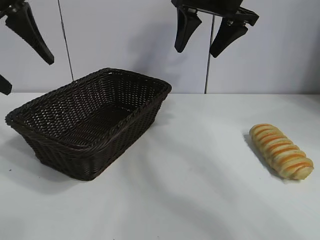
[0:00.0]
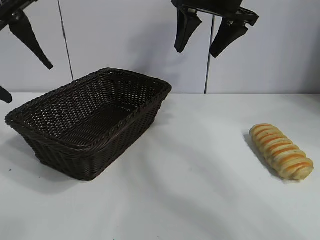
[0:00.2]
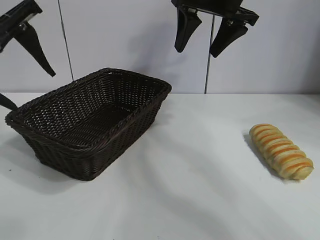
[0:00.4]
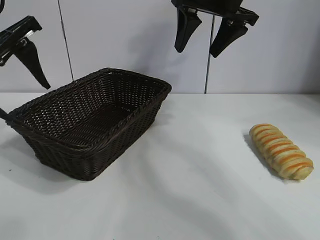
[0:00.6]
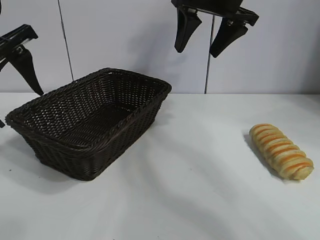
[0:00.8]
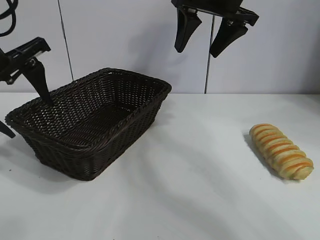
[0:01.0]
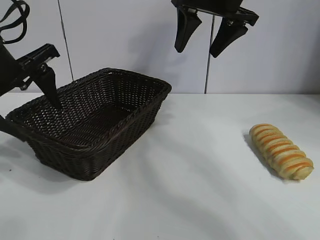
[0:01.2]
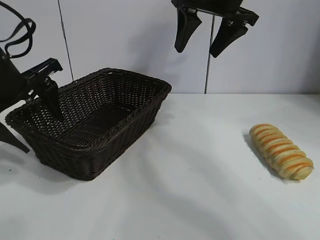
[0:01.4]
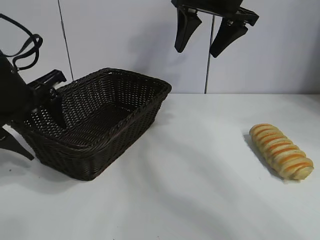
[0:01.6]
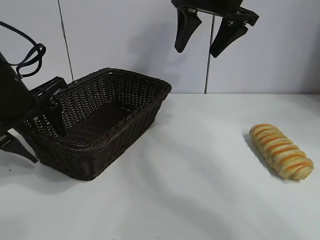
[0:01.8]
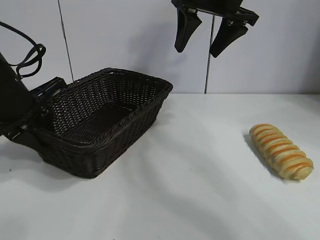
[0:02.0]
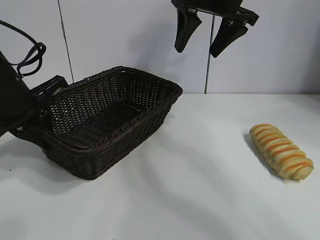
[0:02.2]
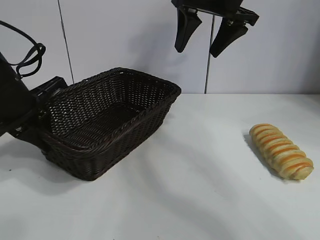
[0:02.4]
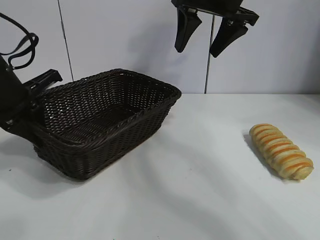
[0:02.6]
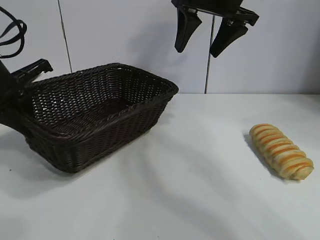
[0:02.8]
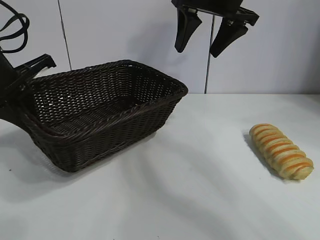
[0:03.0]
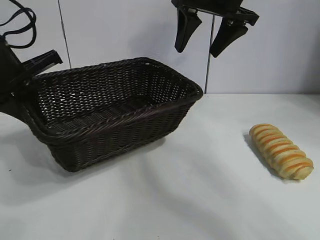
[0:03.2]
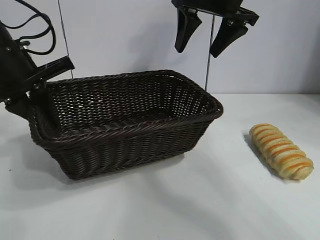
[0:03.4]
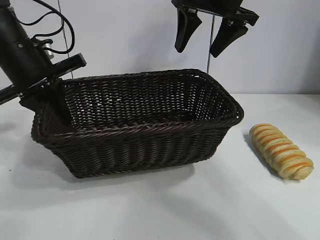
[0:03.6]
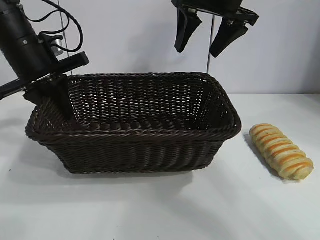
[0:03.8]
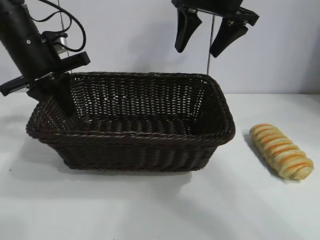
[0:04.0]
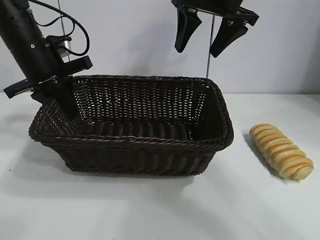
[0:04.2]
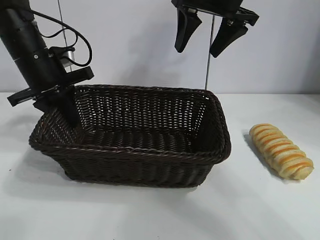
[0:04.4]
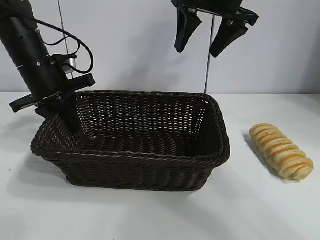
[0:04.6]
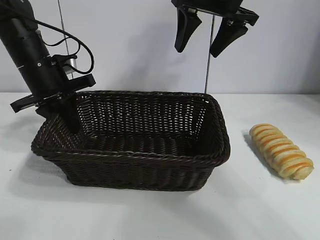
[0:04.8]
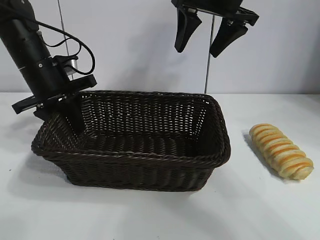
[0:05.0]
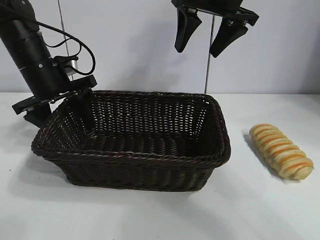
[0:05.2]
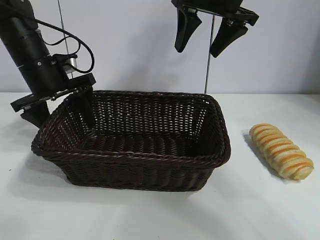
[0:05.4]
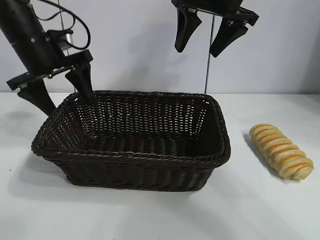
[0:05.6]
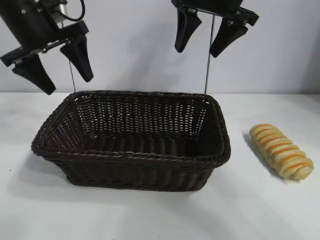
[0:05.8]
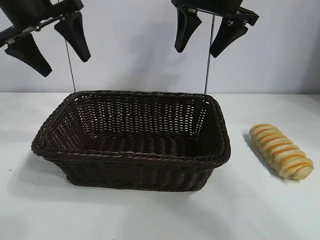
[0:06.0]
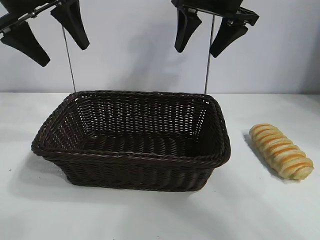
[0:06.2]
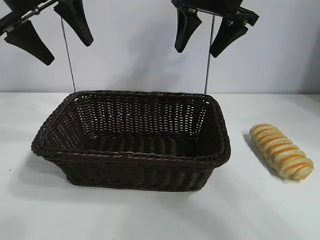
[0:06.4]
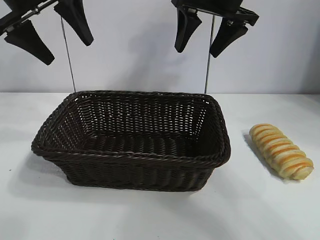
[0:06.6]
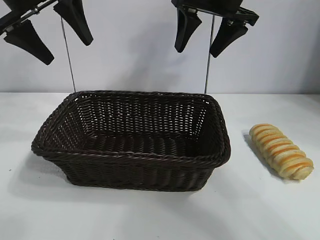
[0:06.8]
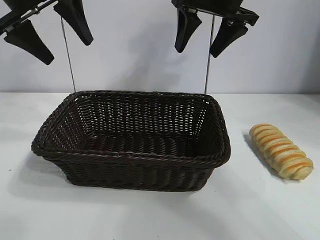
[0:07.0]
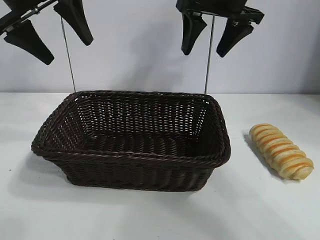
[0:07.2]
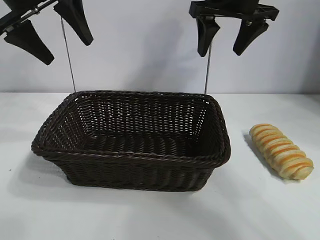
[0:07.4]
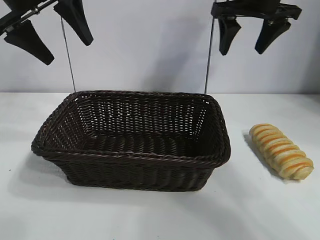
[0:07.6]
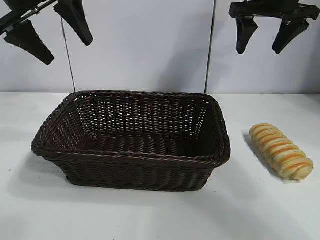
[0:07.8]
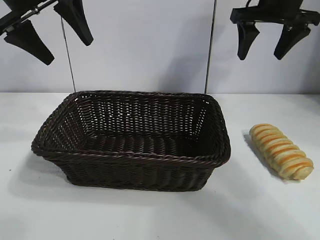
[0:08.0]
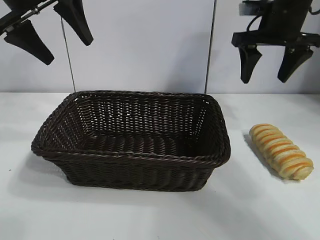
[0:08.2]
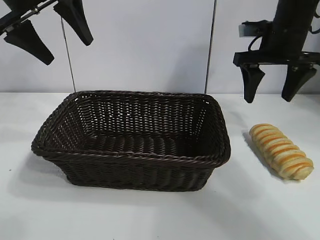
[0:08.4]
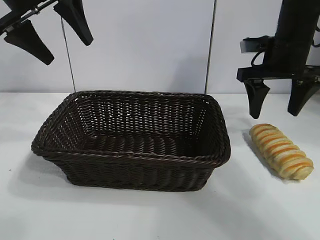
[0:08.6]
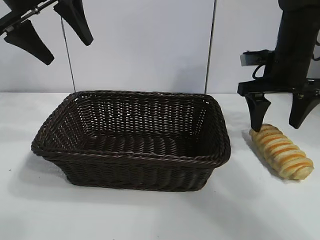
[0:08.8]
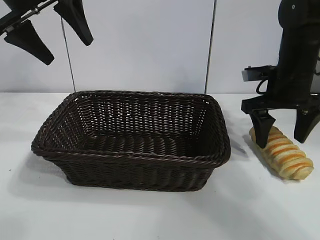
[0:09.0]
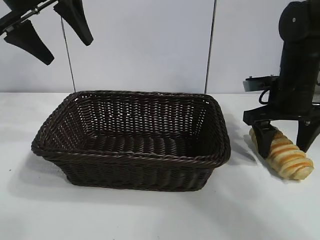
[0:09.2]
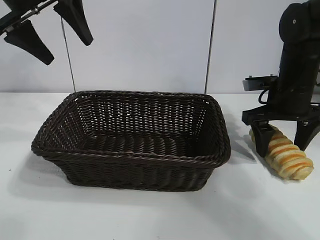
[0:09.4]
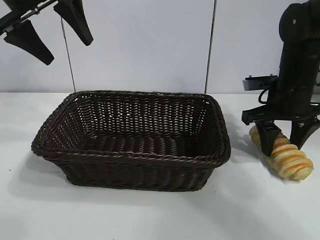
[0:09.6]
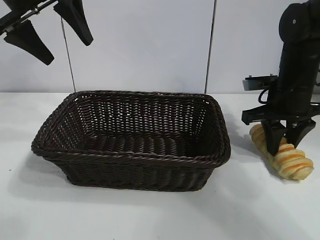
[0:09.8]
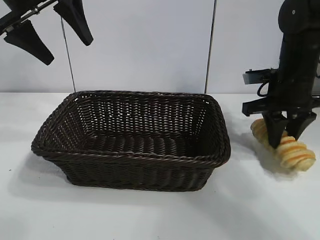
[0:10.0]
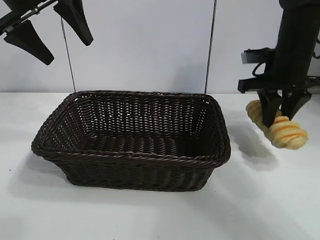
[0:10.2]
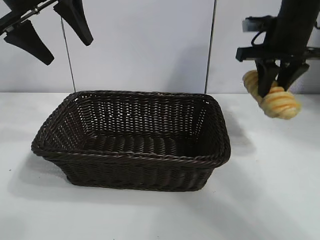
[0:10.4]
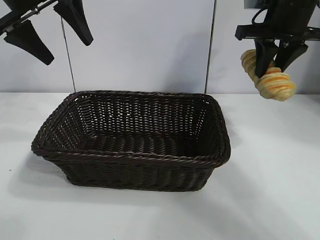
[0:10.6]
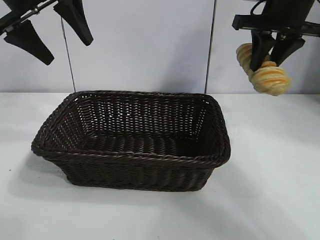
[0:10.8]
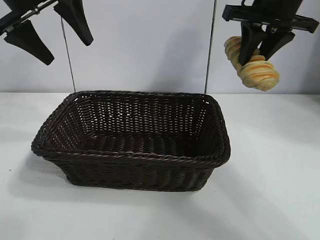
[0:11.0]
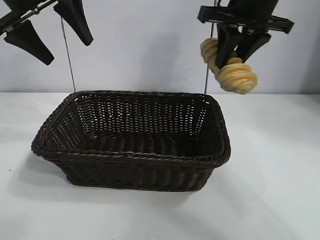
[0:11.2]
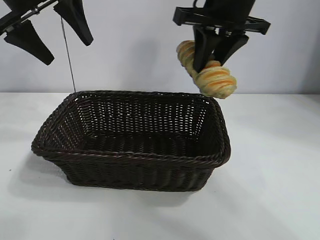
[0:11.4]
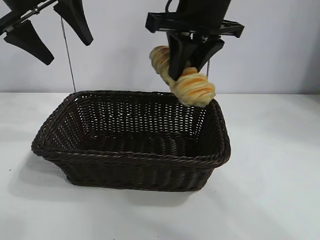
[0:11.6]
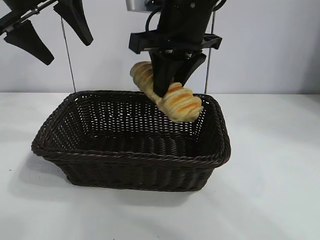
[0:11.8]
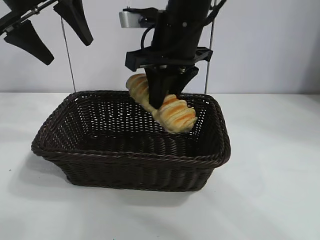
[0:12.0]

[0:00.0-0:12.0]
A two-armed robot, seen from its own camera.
Task of the whole recording: pick up the long bread and put it into the basket.
Step, 0:00.0 to 0:02.2: Grasp the basket with the left gripper.
Step, 0:02.4 to 0:05.2: Place the basket in the center of the table with the left gripper.
Step, 0:05.4 to 0:09.8: Grasp the long bread with right gripper.
